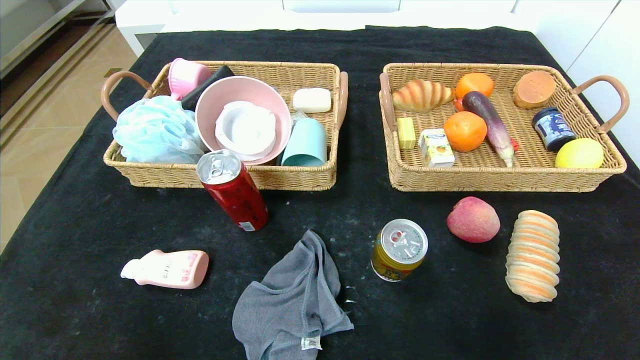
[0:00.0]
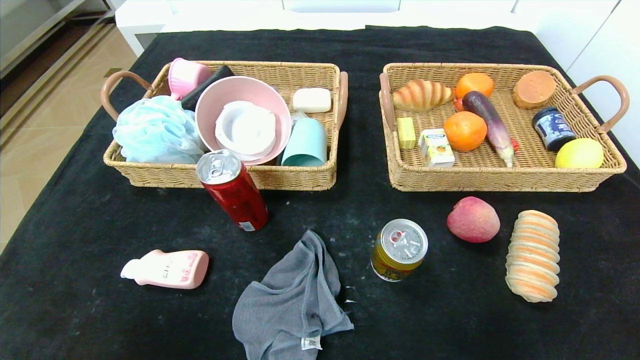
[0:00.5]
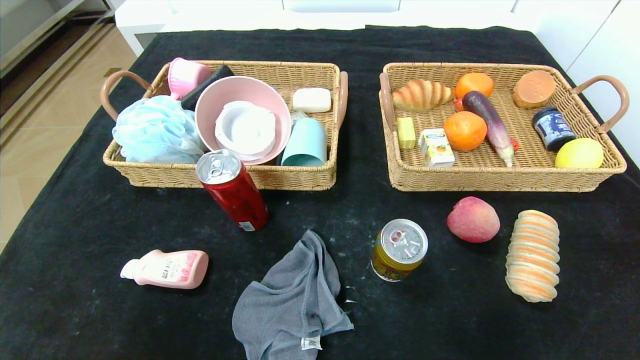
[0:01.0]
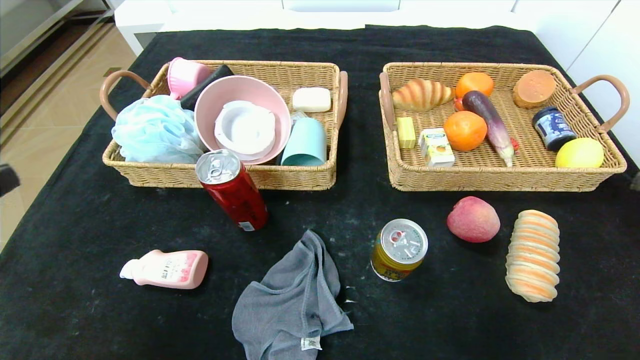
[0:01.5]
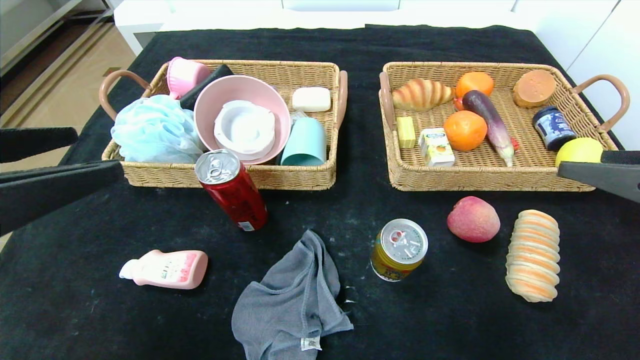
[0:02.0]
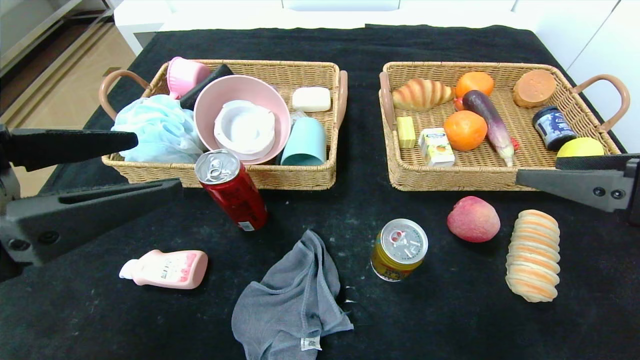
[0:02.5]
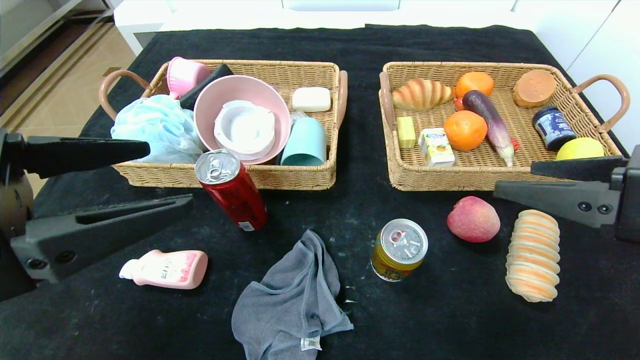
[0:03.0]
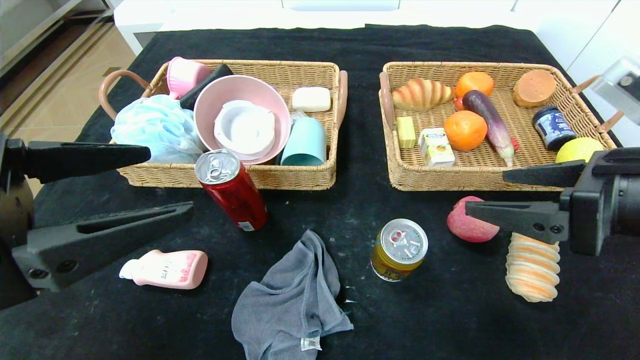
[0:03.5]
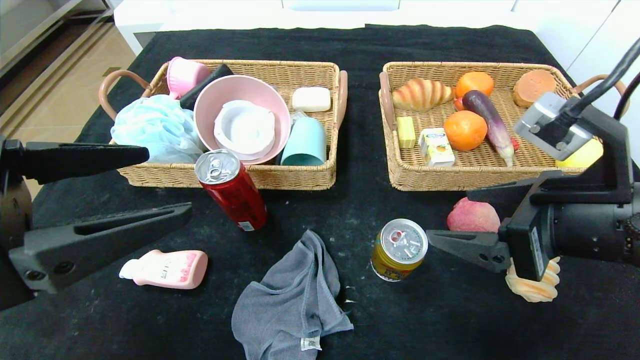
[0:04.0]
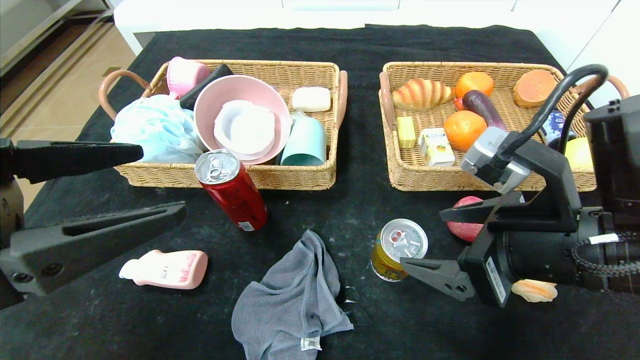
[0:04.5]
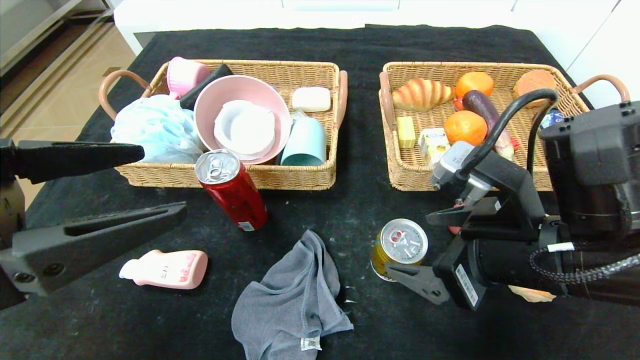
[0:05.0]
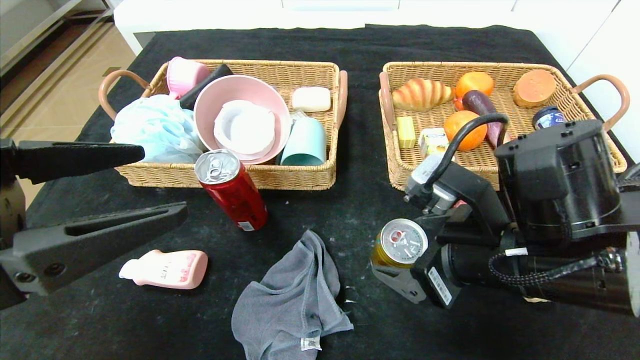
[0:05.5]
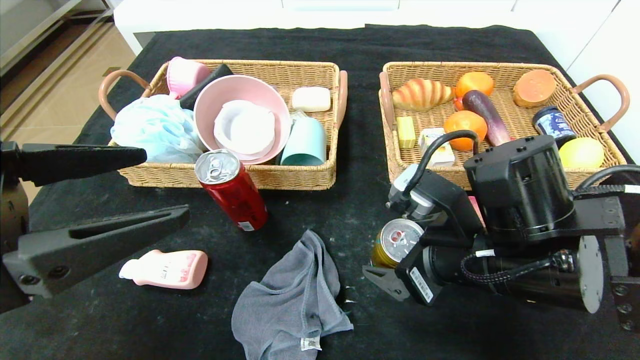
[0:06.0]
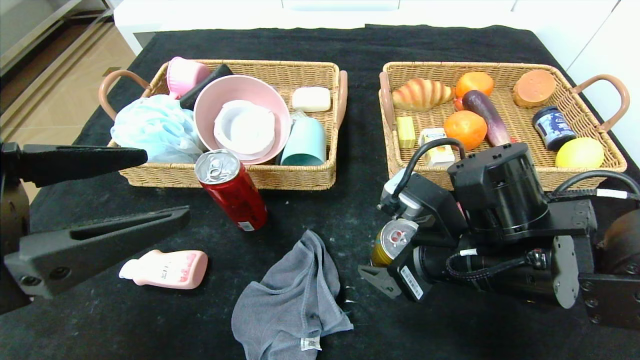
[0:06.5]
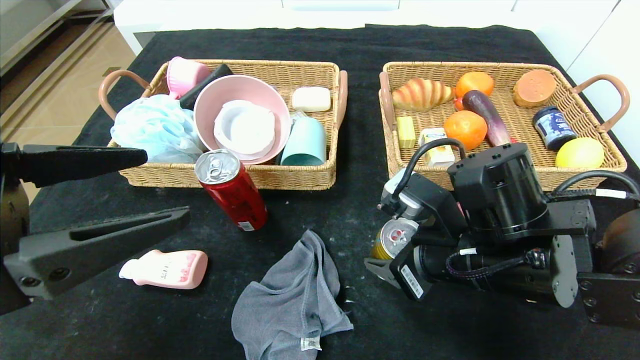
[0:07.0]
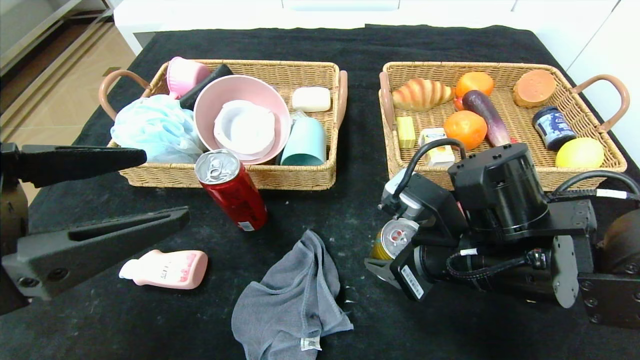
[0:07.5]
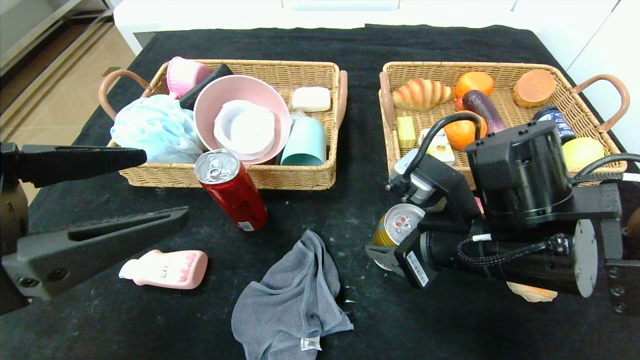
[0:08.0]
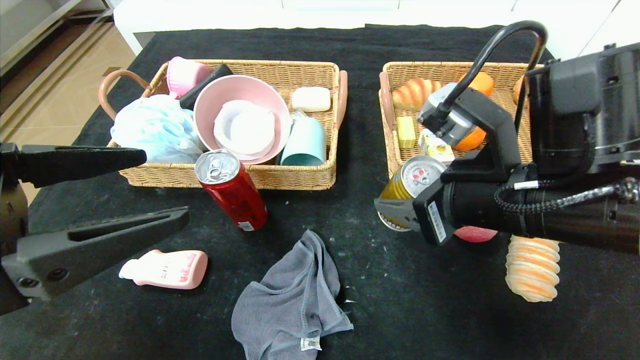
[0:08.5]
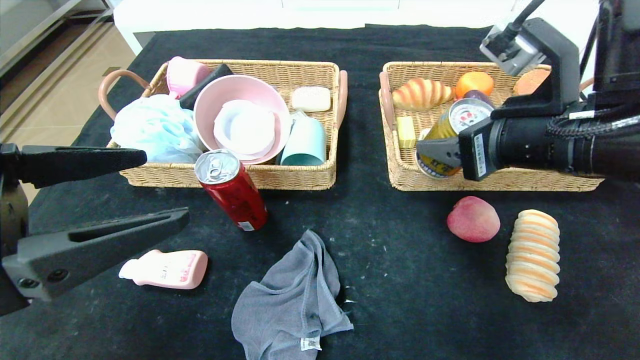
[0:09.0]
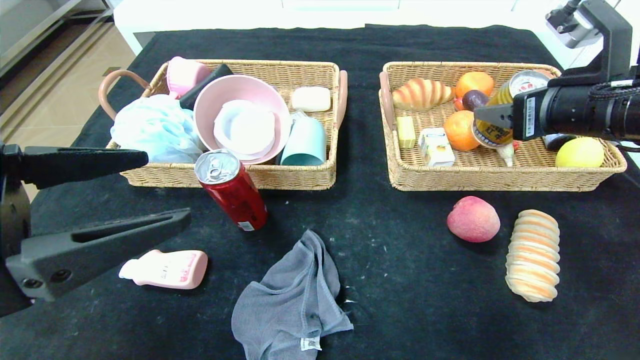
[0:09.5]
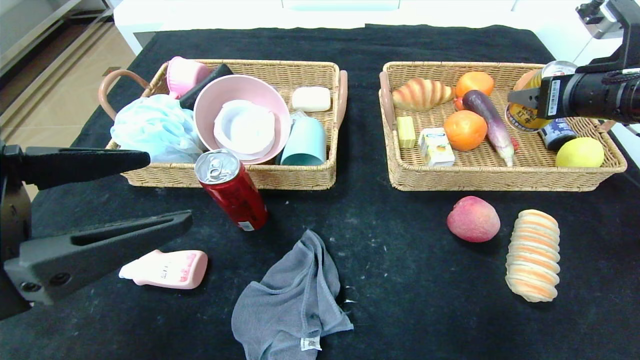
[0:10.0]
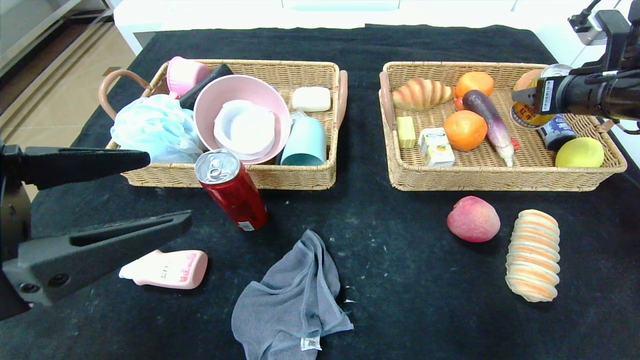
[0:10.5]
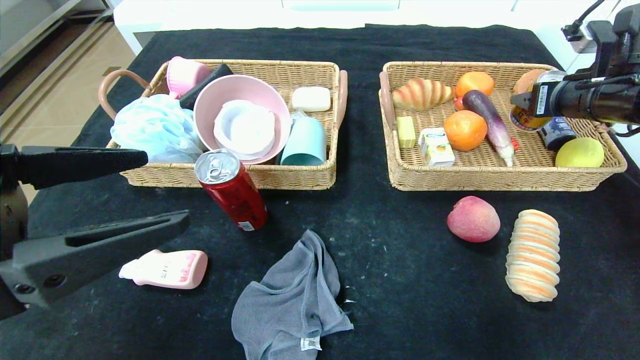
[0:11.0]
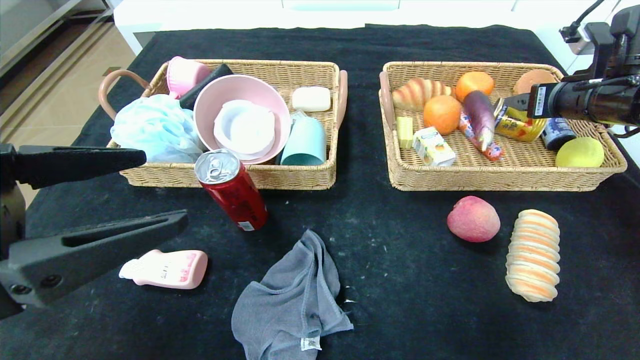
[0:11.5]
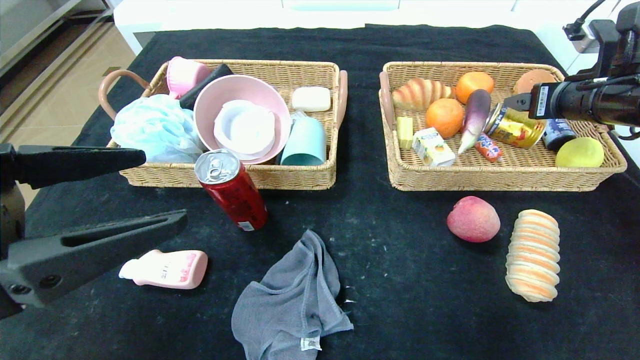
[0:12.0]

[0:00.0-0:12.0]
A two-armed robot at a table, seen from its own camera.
Step, 0:00.0 to 0:11.0: Grasp the Red Bull and put it in the right basket.
0:00.0 to 0:02.0: The two grippers go about 30 cm upward and forward.
0:02.0 to 0:04.0: The right gripper is displaced to the left by about 10 cm.
0:04.0 to 0:06.0: The right gripper heads to the left and downward, covering roughly 10 cm.
0:06.0 to 0:08.0: The right gripper closes up.
0:08.0 to 0:10.0: The right gripper heads to the right, upward and forward, covering about 20 cm.
0:10.0 to 0:12.0: The right gripper goes some 5 cm forward.

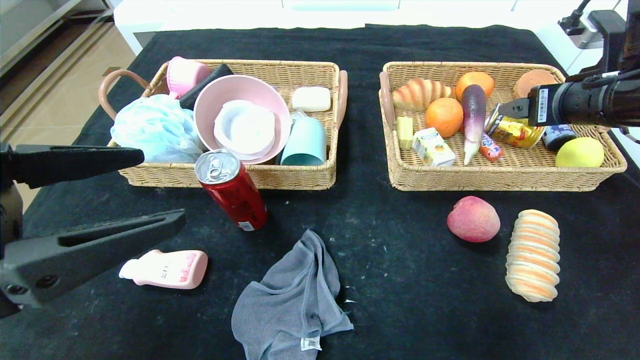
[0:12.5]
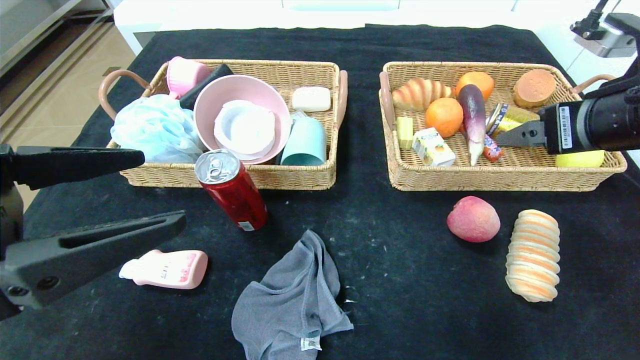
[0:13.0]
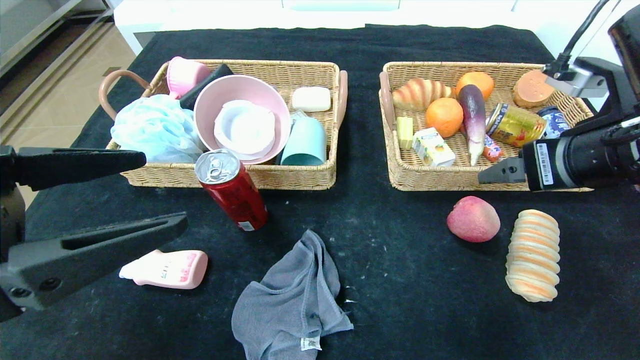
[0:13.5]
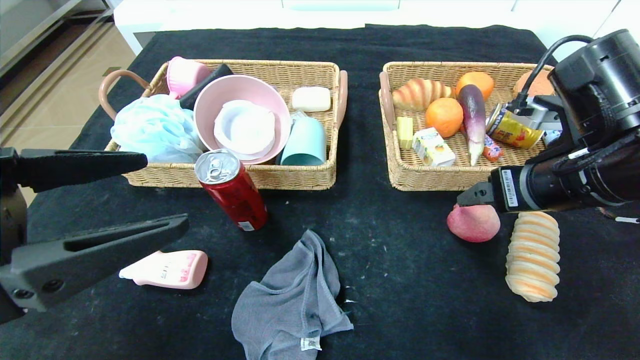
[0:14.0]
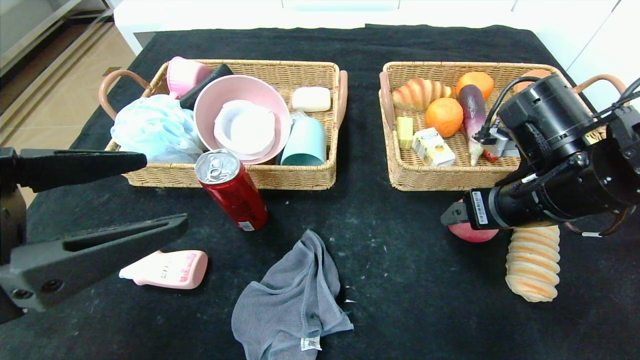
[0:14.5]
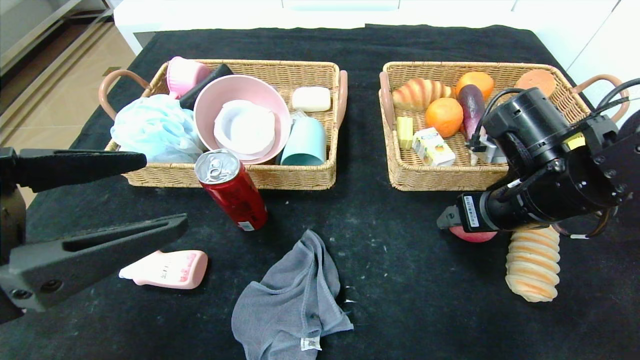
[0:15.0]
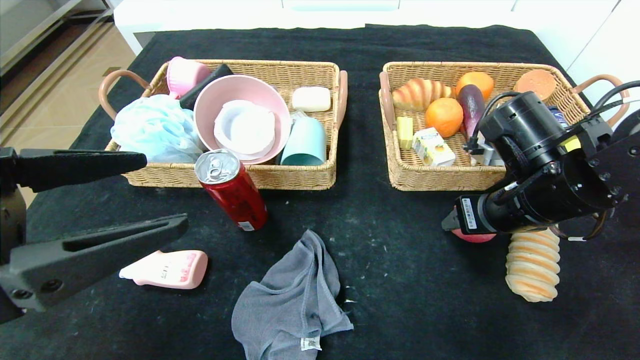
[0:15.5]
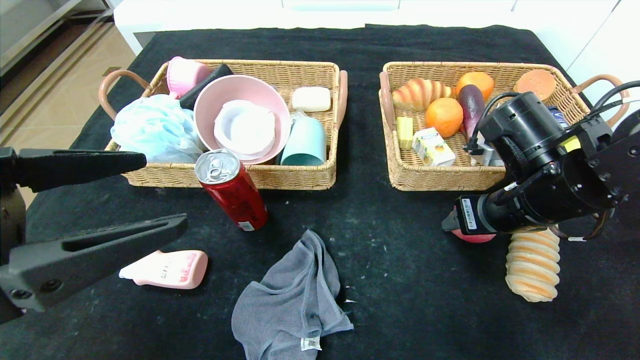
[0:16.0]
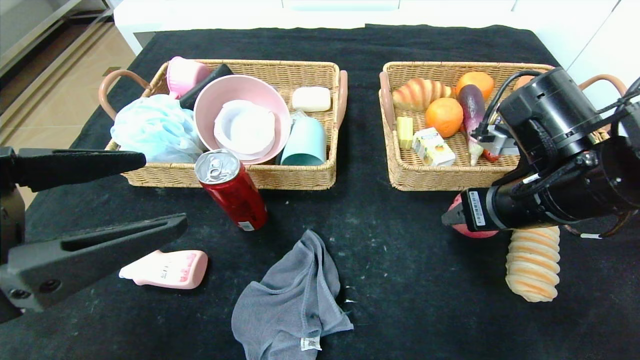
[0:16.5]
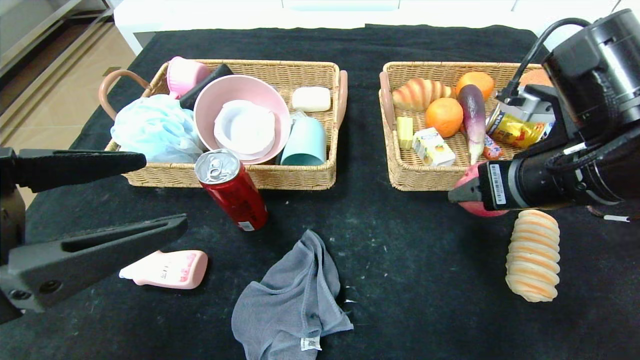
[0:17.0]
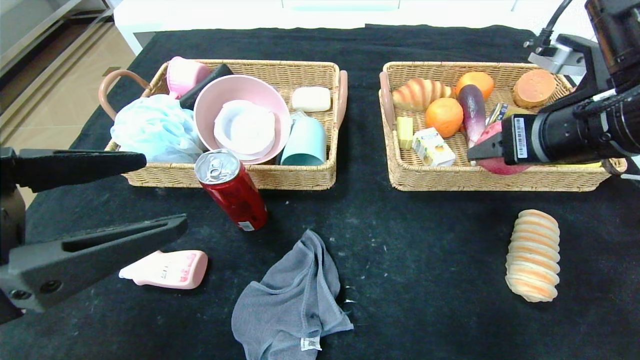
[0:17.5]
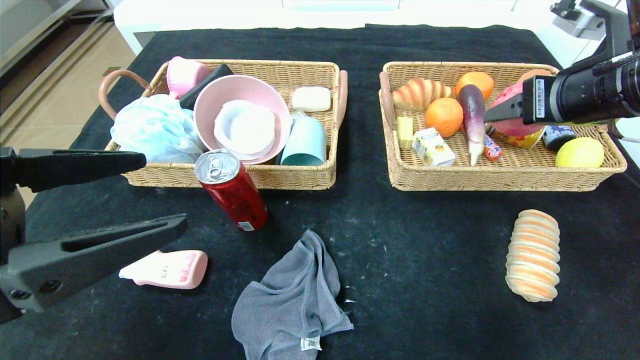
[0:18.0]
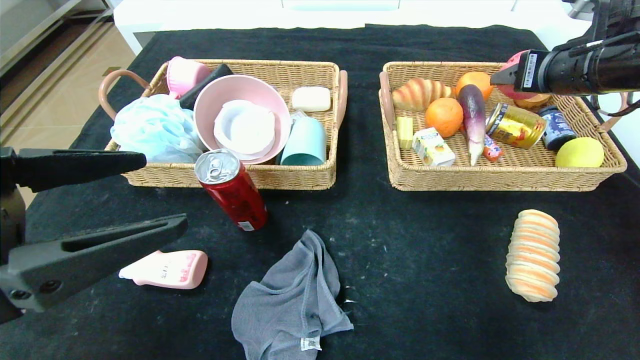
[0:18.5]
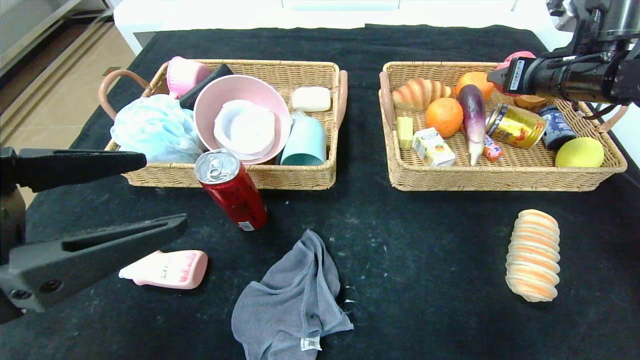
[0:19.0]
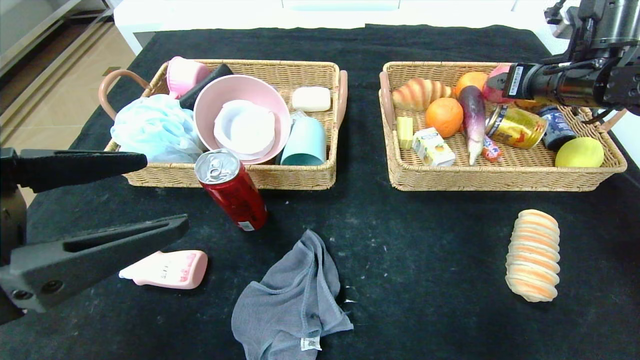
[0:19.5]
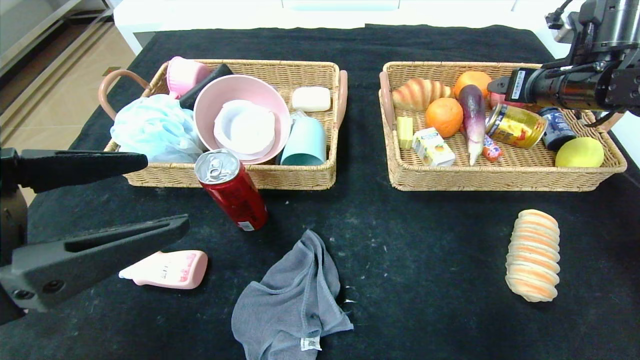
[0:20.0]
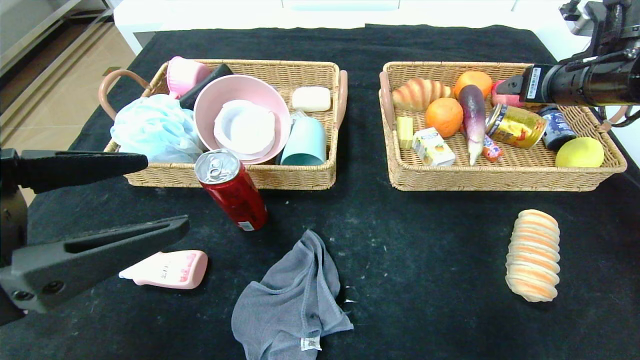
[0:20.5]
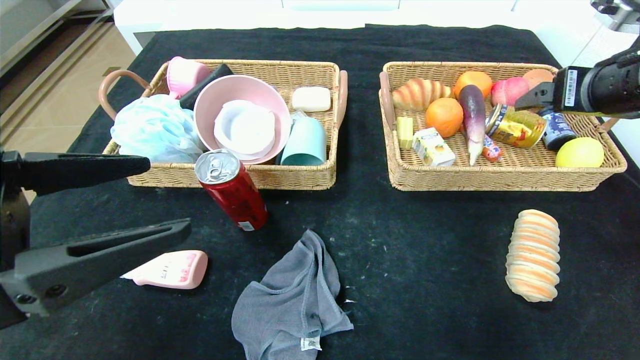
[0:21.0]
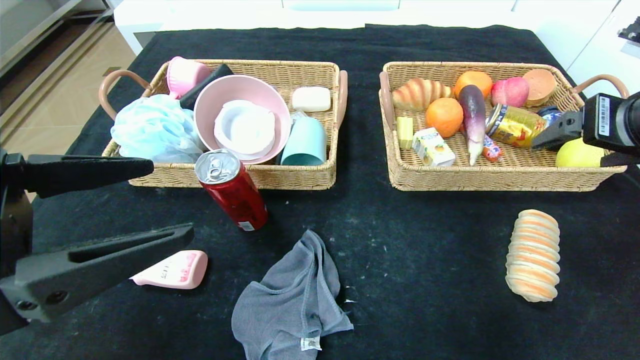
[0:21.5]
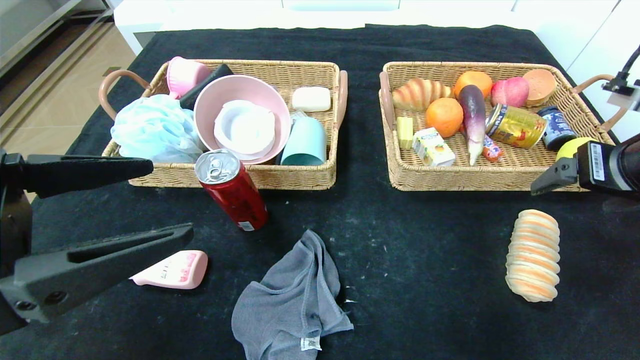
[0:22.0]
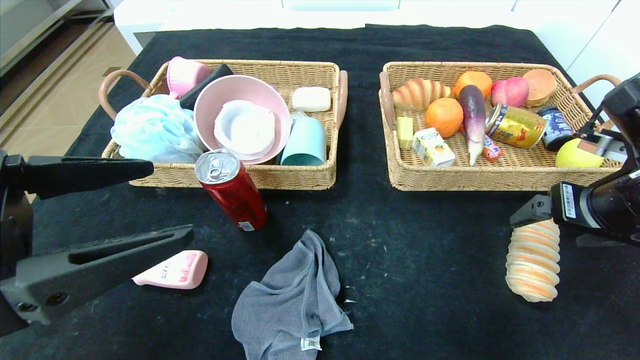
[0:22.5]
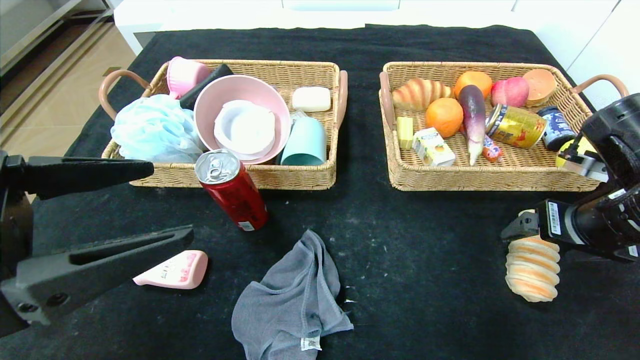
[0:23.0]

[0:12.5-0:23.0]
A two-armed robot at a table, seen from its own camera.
Step, 0:12.5 to 0:20.0: Grasp the peach and put it in the right basket.
0:12.5 to 0:14.5: The right gripper shifts some 10 cm downward and to the left.
0:14.5 to 0:16.5: The right gripper closes.
0:16.5 to 0:19.0: The right gripper shifts some 20 cm forward, to the right and upward.
0:19.0 to 0:21.0: The right gripper heads backward, covering approximately 10 cm, and opens its fingers.
0:21.0 to 0:23.0: The right gripper is displaced downward by some 10 cm.
